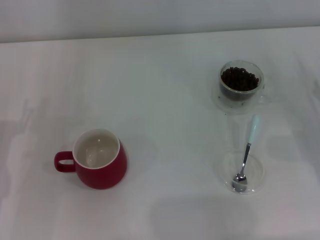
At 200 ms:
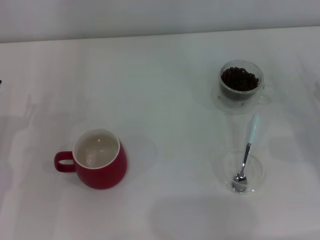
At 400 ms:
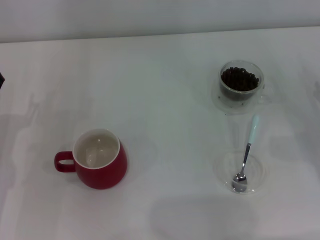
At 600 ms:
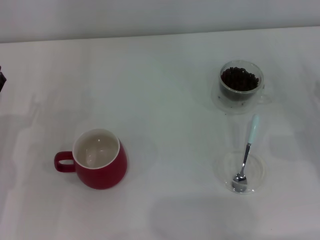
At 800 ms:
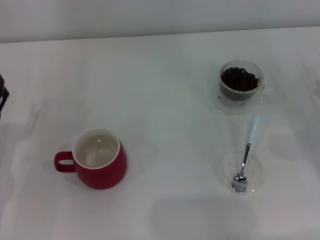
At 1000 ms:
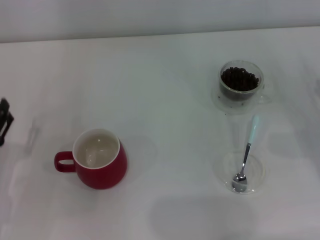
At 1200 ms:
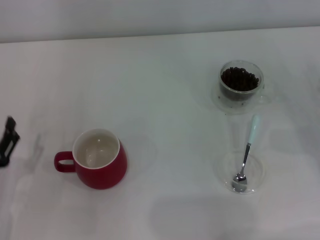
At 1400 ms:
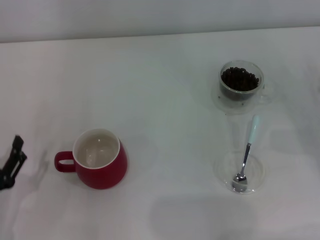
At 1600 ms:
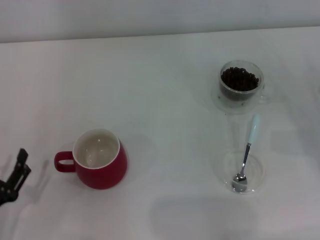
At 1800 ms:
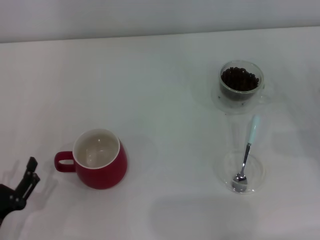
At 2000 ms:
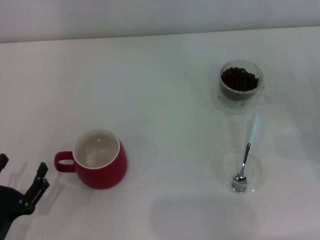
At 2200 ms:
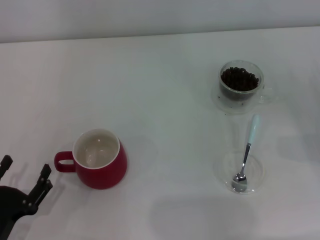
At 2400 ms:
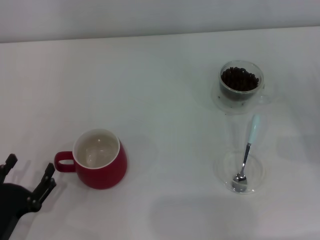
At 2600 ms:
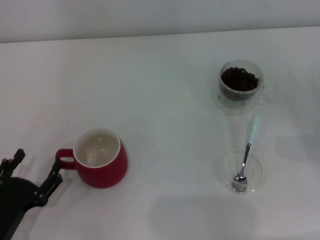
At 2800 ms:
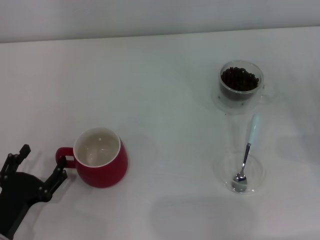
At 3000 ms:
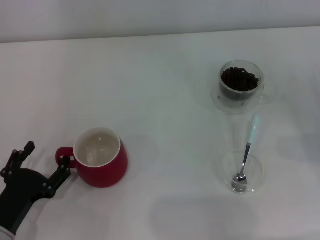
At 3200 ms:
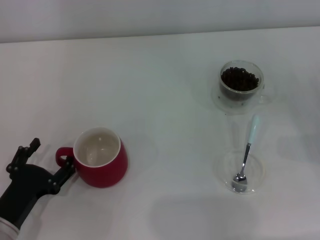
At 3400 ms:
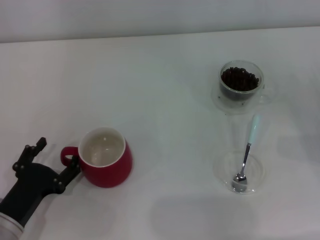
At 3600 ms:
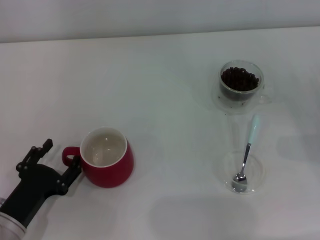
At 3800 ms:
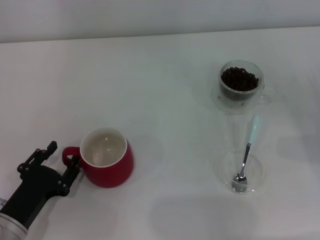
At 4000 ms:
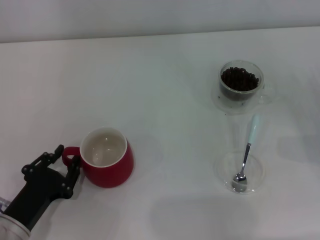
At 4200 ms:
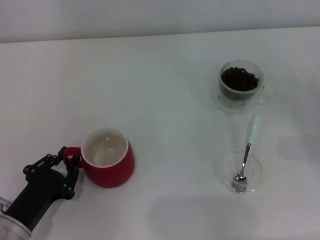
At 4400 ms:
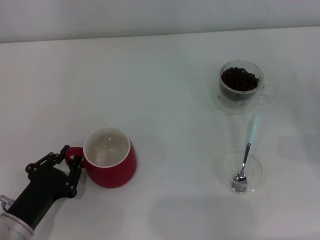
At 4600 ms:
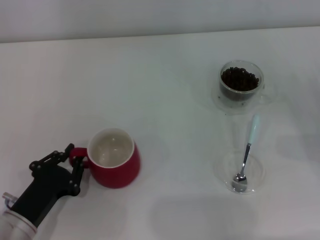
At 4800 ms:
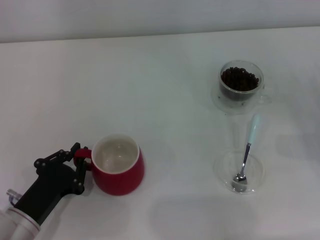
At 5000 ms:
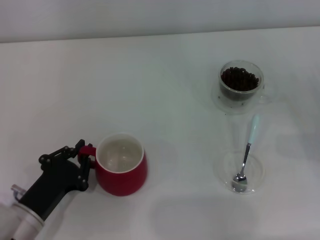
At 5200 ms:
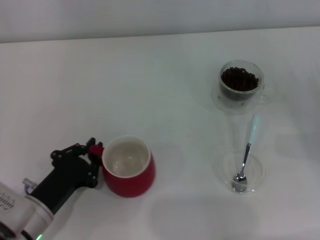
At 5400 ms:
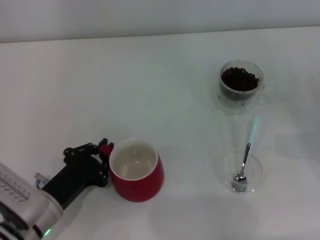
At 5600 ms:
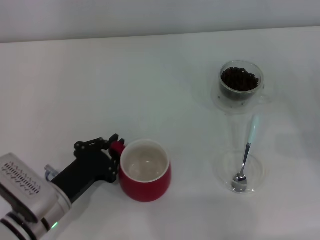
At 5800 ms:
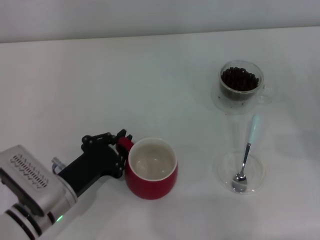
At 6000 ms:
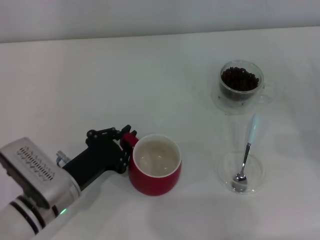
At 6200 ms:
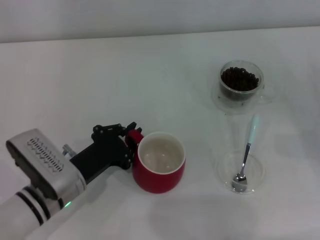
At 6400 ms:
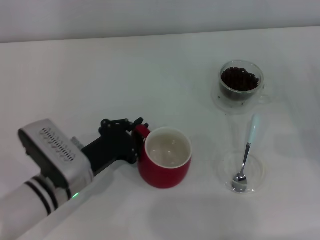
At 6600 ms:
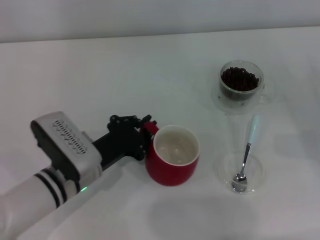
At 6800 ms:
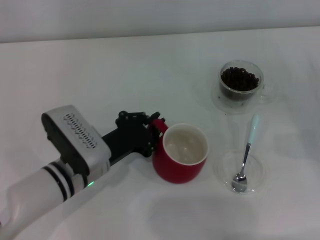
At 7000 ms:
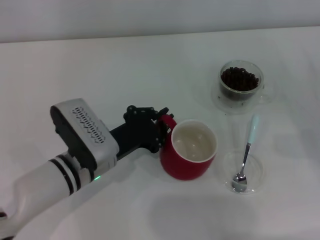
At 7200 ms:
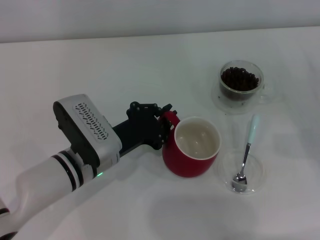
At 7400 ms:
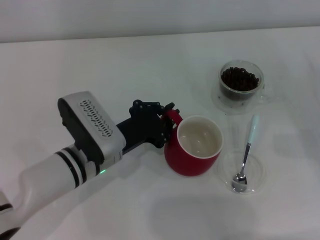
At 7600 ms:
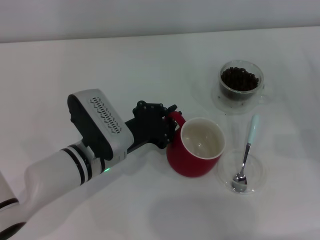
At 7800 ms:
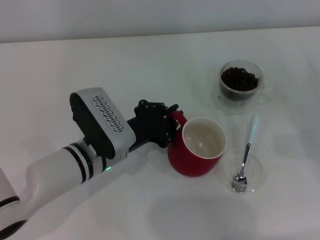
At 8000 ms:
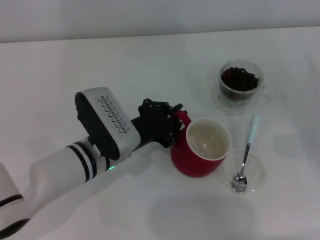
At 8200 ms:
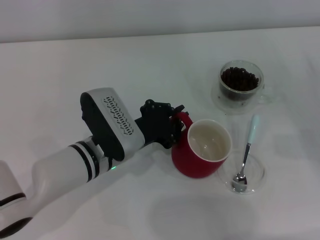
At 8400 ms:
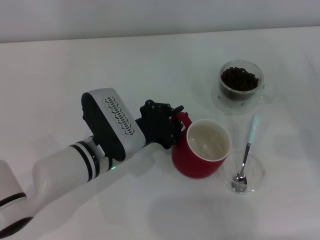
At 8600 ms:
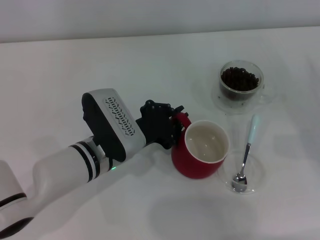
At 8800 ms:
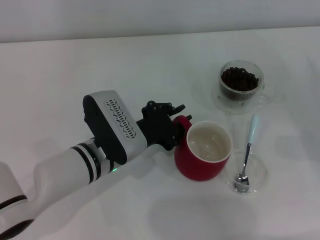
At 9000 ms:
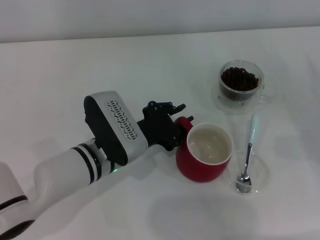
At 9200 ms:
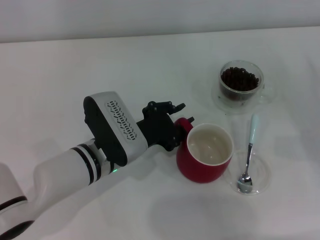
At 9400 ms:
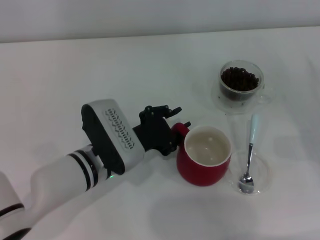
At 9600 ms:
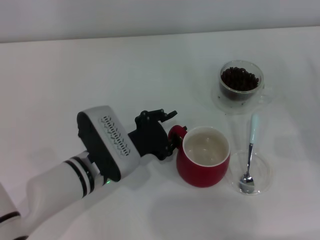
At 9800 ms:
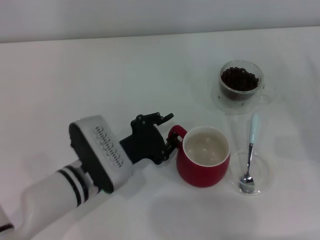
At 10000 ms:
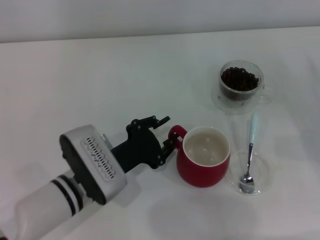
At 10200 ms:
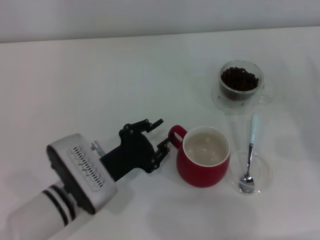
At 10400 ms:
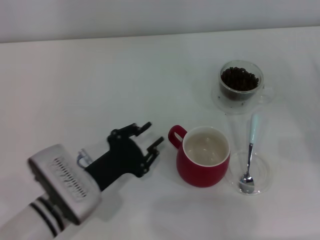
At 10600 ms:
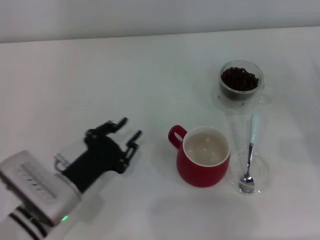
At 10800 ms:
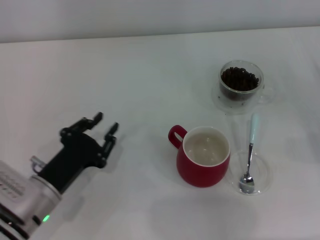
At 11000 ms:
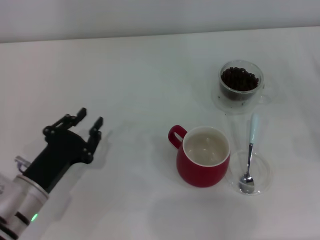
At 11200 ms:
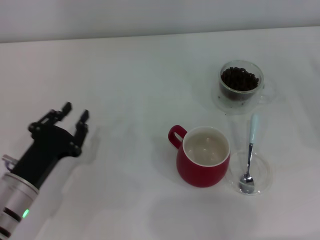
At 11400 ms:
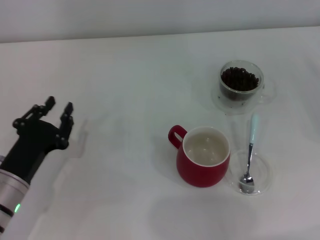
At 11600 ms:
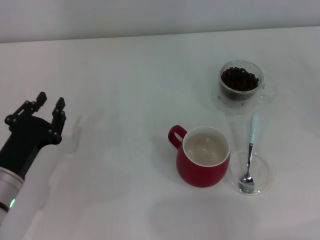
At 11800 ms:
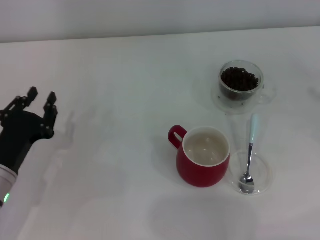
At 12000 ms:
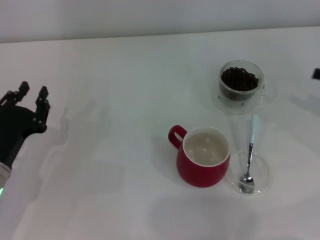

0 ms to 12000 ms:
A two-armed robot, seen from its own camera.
Task of the whole recording: Use a blue spoon to take out the coffee beans from the glass and pour them into the red cup.
Step, 0 ms to 10400 ms: Move the cup to the center of view with the left gripper.
0 ms to 1600 ms: The left gripper travels backward by some 10 cm.
1600 ms to 3000 ms: The grippers stay close to where they were, moving slightly.
3000 ms to 4400 ms: The left gripper closes its fingers.
4400 ms to 6000 ms: The left gripper shifts roughly 10 cm to the right and forward.
6000 ms to 7600 ms: The left gripper shifts about 10 cm to the right and forward.
7600 ms to 9000 ms: There are only small adjustments of the grippers.
9000 ms to 10400 ms: The left gripper heads backward and to the left, covering roughly 10 cm.
10400 ms to 12000 ms: The left gripper is displaced to the left by roughly 10 cm; the right gripper moves upward, about 5 cm.

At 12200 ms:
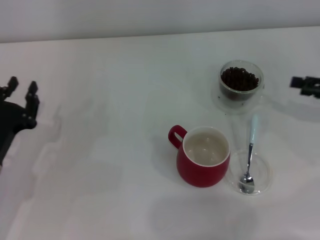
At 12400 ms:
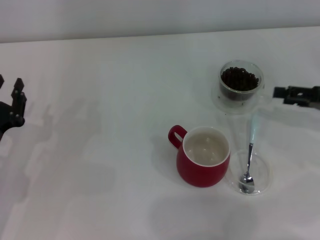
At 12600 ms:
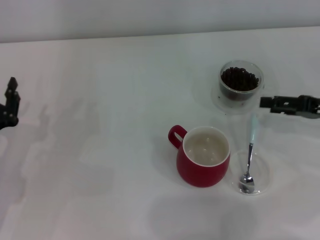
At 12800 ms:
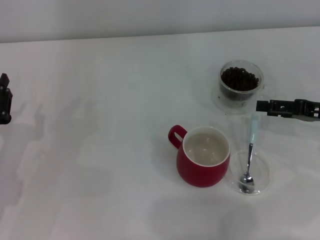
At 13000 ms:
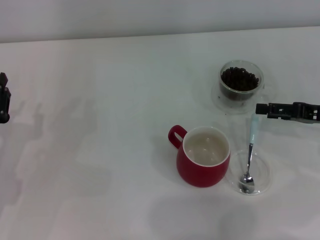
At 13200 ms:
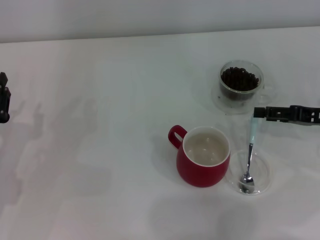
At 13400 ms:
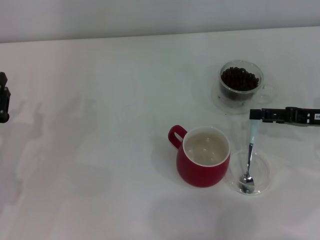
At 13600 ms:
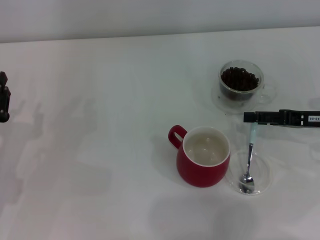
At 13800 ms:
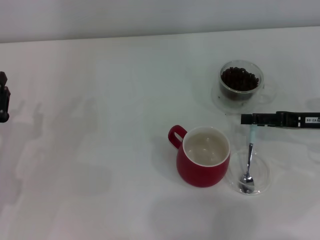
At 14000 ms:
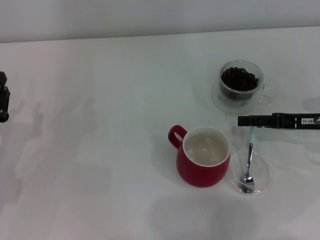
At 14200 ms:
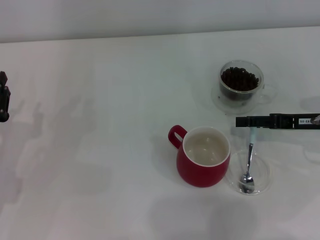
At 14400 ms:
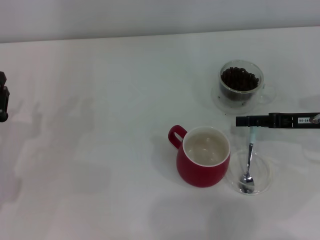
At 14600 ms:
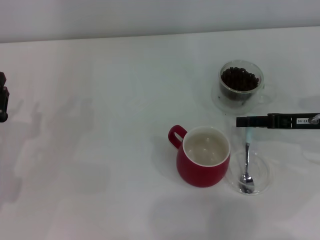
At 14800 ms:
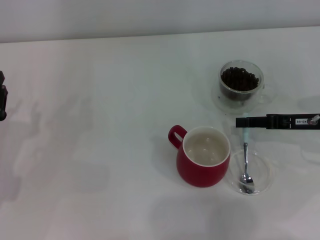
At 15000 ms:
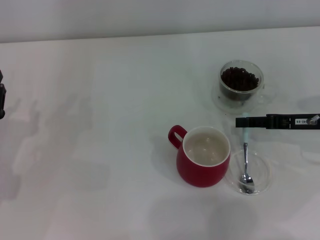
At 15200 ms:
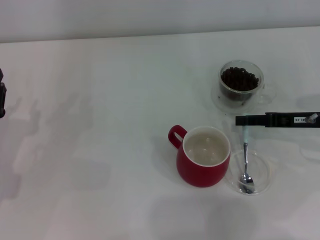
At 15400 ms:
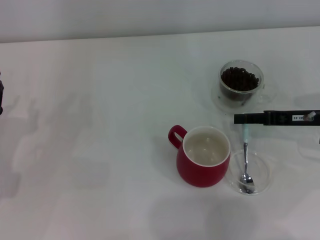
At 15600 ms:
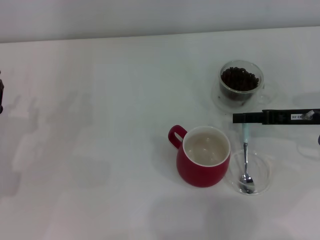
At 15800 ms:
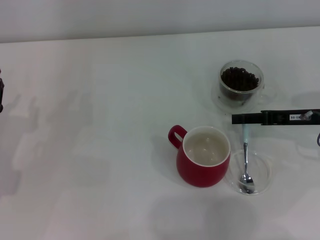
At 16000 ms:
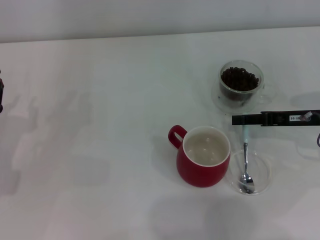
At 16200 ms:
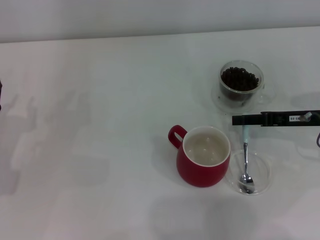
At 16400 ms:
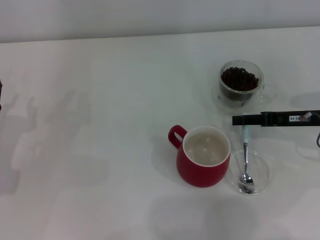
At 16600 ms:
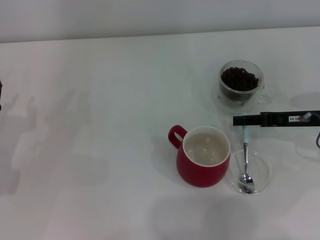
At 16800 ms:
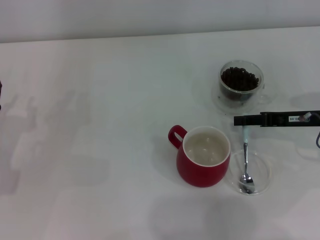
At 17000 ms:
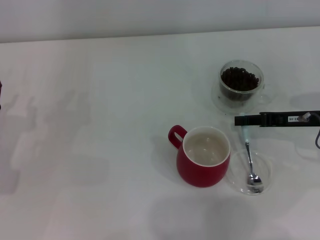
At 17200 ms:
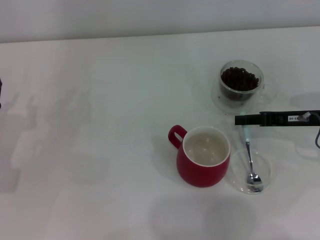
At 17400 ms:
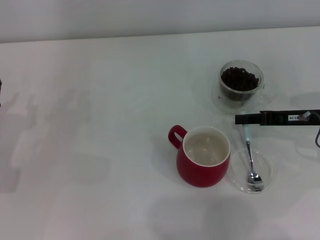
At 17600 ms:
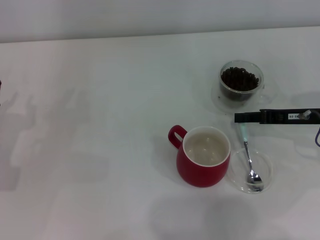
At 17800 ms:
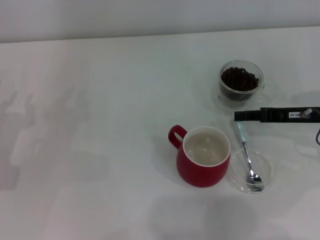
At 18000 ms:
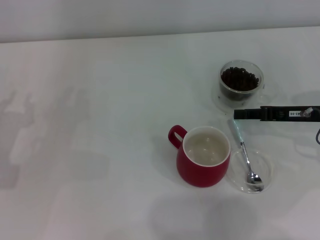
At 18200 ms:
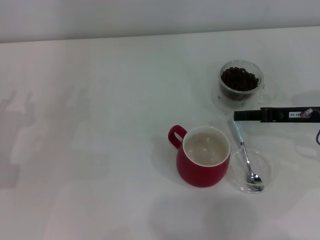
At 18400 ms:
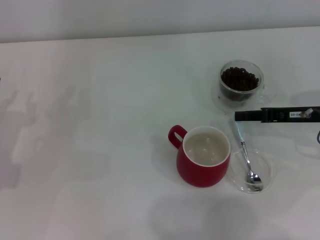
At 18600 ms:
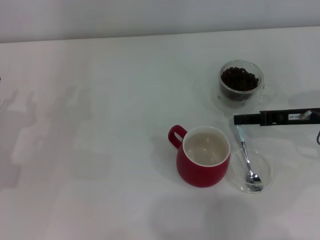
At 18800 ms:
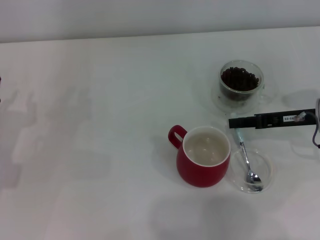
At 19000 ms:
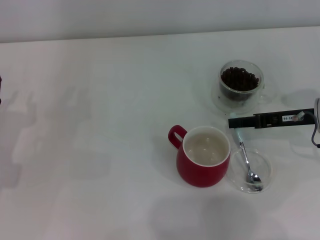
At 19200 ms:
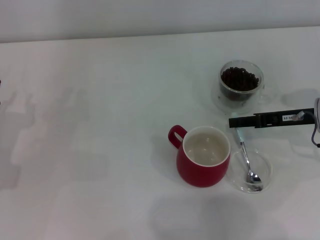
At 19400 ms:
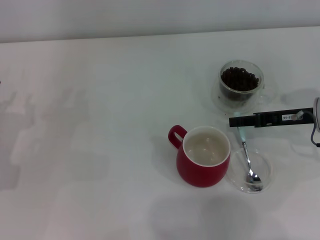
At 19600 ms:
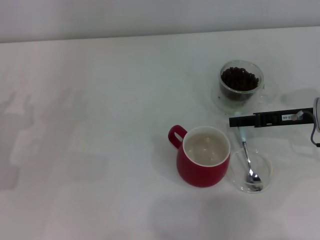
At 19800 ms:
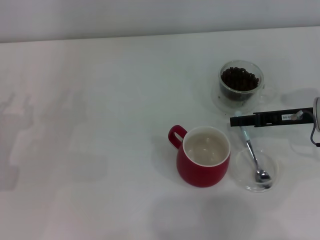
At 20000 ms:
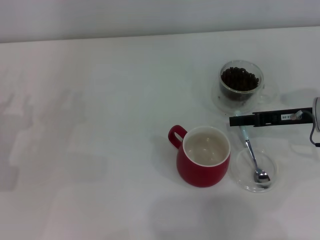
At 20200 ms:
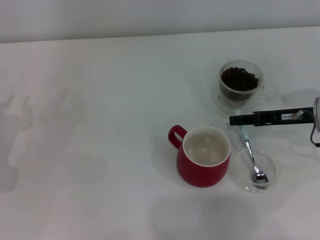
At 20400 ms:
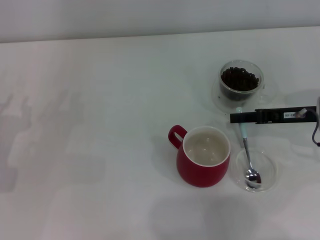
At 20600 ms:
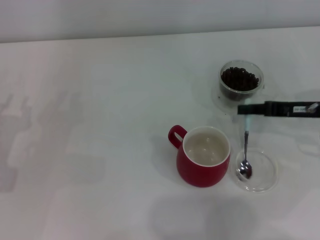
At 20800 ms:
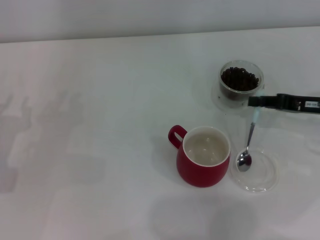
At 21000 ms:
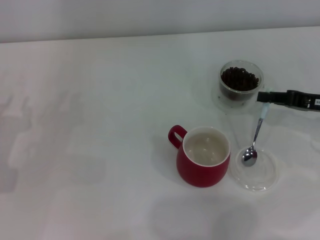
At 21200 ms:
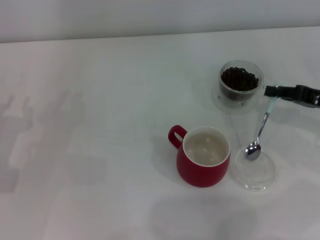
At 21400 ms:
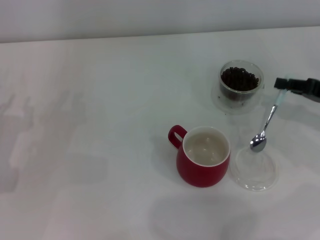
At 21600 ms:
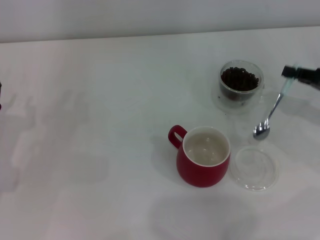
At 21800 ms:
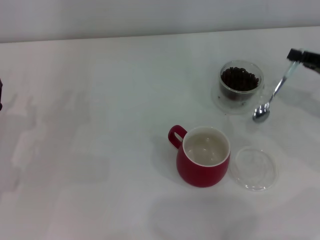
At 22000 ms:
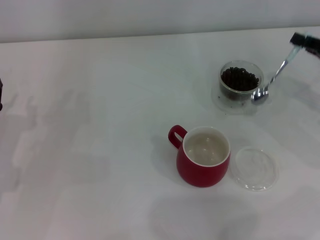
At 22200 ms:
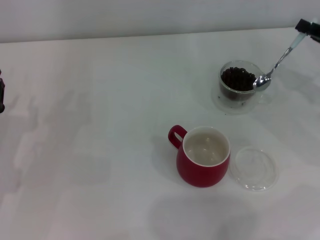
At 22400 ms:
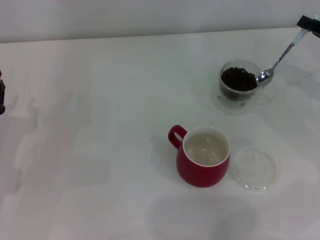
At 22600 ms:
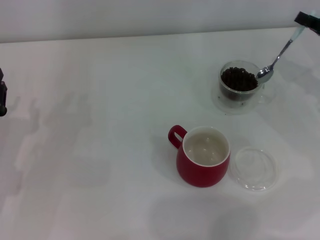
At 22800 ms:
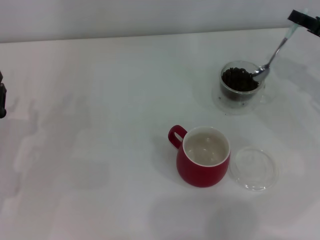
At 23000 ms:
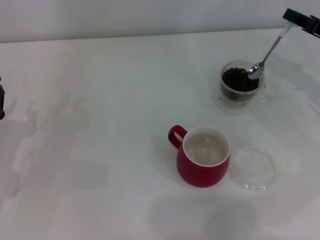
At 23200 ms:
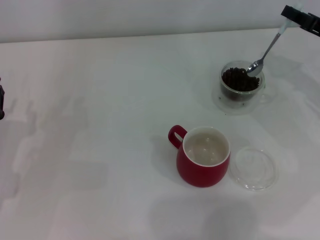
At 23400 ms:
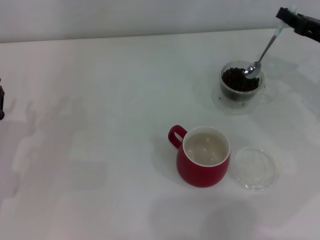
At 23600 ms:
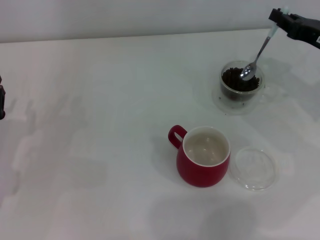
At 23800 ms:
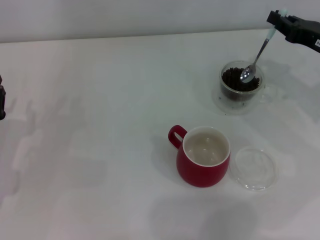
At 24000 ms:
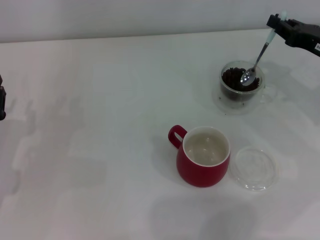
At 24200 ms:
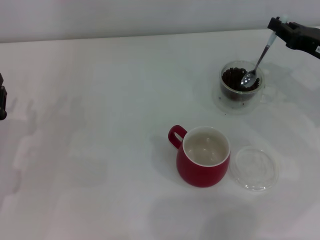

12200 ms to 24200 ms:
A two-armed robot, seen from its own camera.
Task of the whole recording: Use a blue spoon to take out the coffee beans from the glass and pour them into the red cup.
Step, 12200 ms to 21200 ms: Pick up the spoon with the right gripper.
12200 ms to 13800 ms: The right gripper shifts about 5 cm to the left.
13800 ms to 15200 ms: The right gripper closes.
15200 ms to 16600 ms: Neither gripper changes place.
16600 ms to 18200 ms: The right gripper closes up.
18200 ms to 19800 ms: The grippers move only a little.
19800 ms to 21200 ms: The right gripper heads to the right, covering roughly 5 cm.
21200 ms to 22600 ms: The right gripper ends up about 5 cm from where it was.
22600 ms to 24200 ms: The grippers stay close to where they were, moving slightly.
